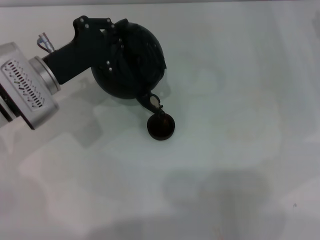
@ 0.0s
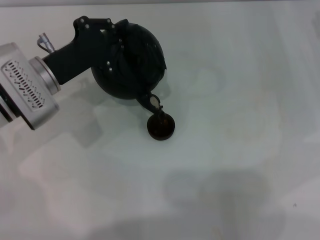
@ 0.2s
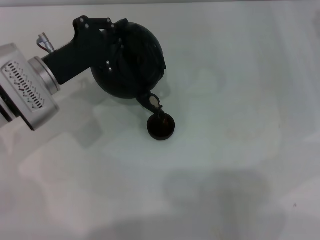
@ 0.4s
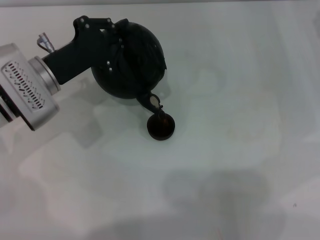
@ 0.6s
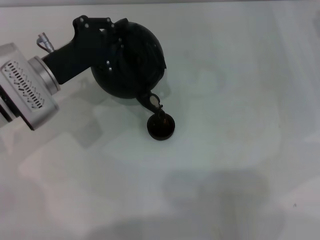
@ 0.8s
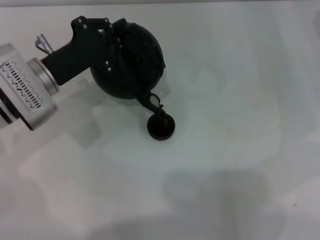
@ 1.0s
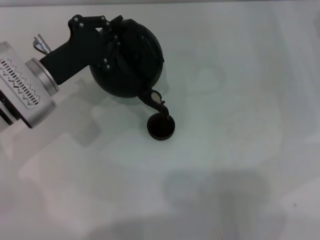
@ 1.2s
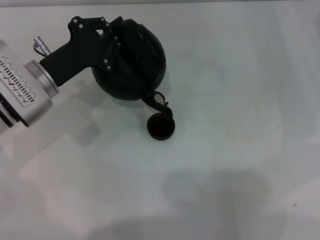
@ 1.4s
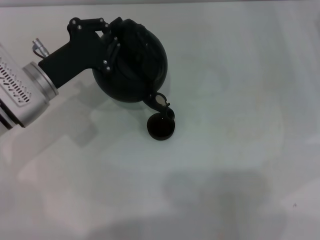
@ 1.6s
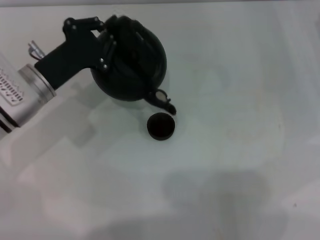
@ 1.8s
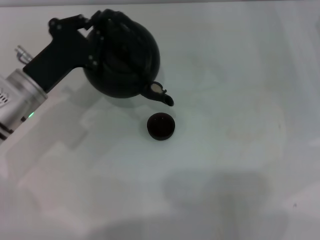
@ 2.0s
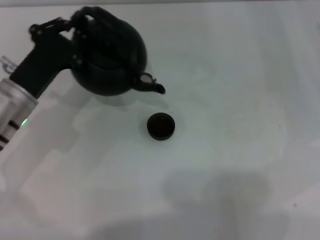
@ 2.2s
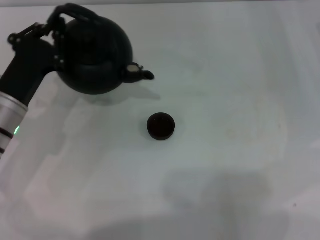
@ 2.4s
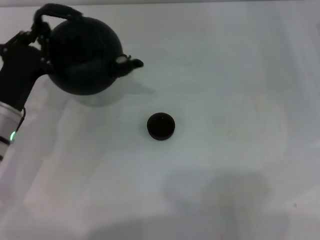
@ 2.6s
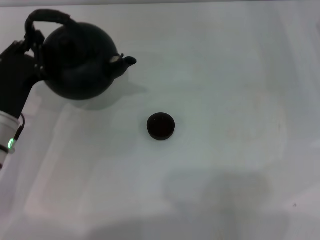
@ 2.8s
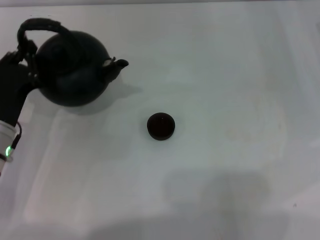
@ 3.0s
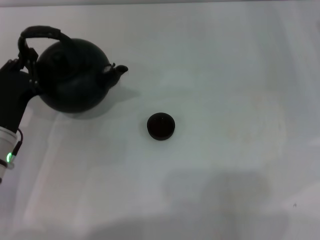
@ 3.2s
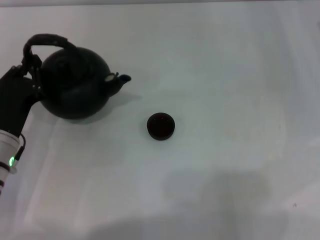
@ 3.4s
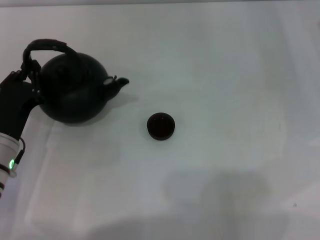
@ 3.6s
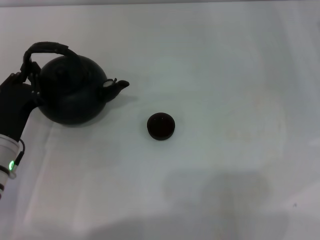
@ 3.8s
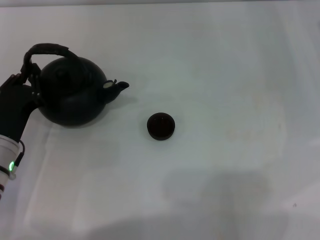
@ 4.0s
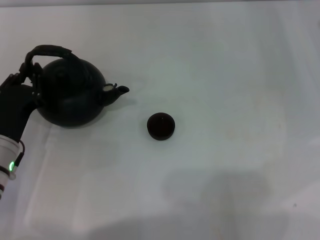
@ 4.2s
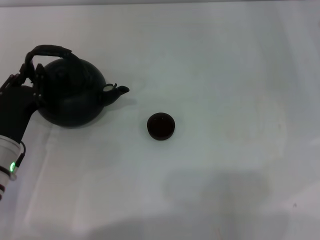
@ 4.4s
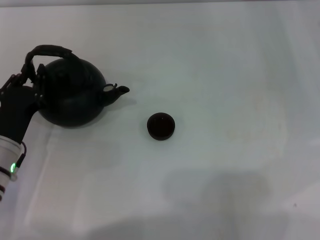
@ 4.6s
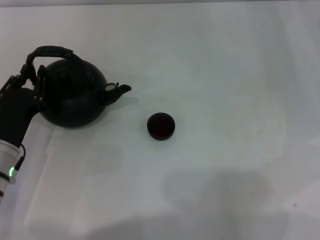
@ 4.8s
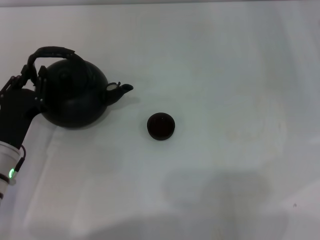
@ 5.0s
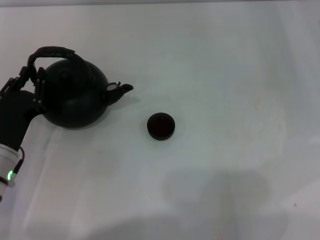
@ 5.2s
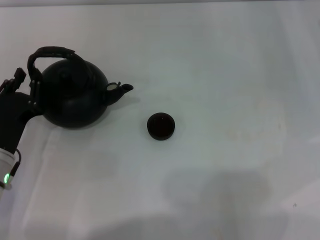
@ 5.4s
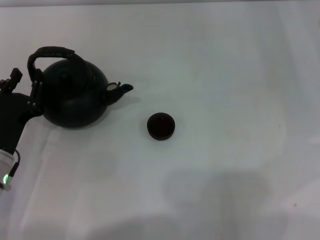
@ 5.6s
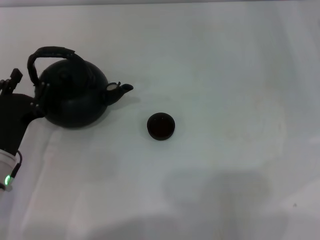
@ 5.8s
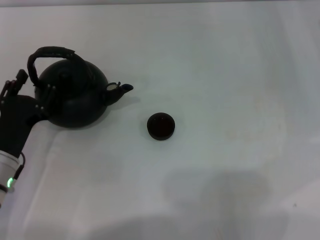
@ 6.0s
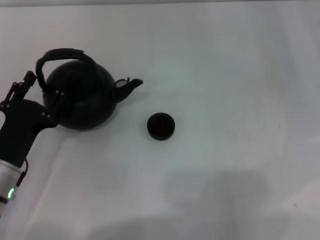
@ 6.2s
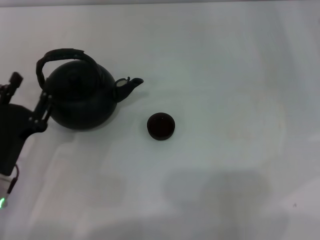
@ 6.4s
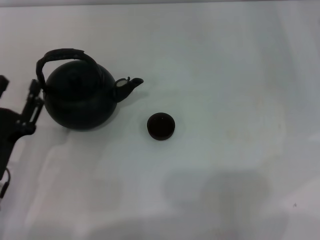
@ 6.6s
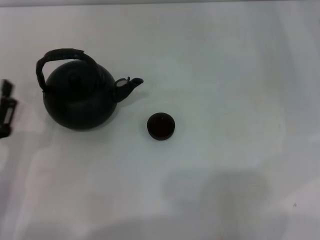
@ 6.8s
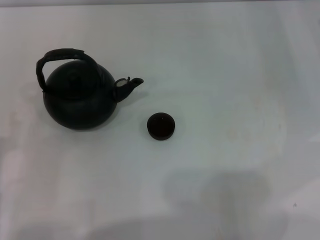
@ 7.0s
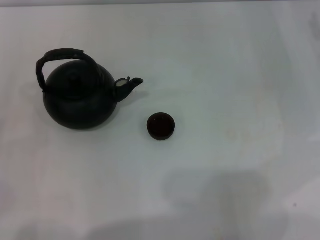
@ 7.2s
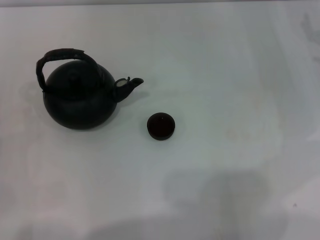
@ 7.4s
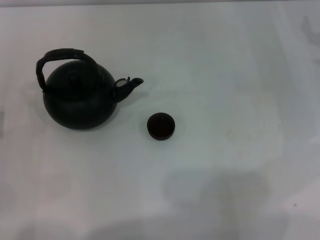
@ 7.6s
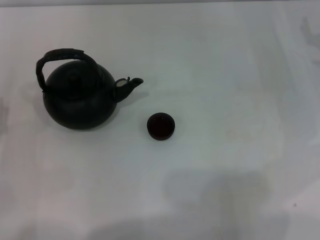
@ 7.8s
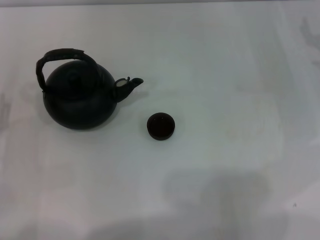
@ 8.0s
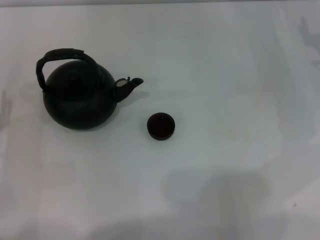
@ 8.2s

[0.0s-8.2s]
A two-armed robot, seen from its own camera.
Task of the whole recording: Grasp the handle of the teapot with one hand and pour tea into the teacup.
Step, 0.0s to 2.8s: Pour tea into the teacup with the left gripper.
Step, 3.0s to 6.2s: Put down the teapot with the left gripper.
0.0s to 1.6s: There are only small adjustments of the grippers.
1.6s to 3.2s: The left gripper moves backward, some 10 cm.
3.2s to 5.0s: The left gripper opens its fingers.
5.0s to 6.6s: The left gripper moves backward, about 5 cm, and opens.
6.6s to 8.2s: The left gripper is displaced to the left by approximately 5 cm.
